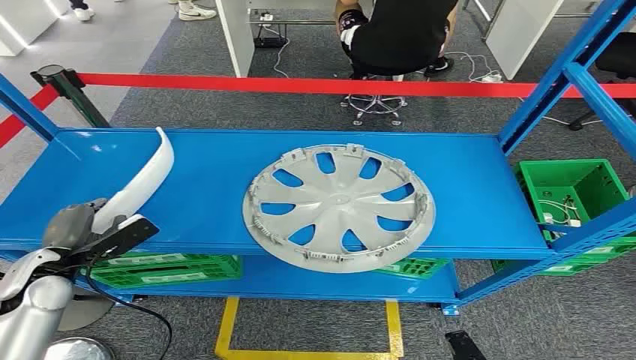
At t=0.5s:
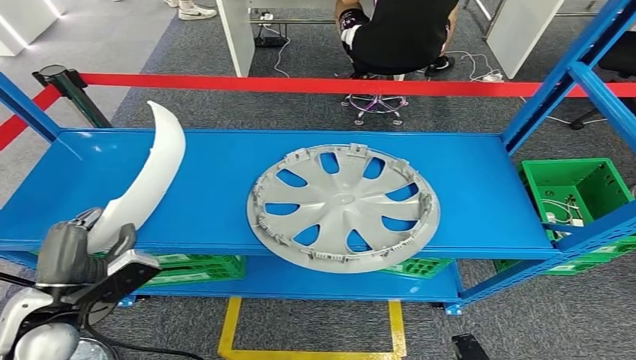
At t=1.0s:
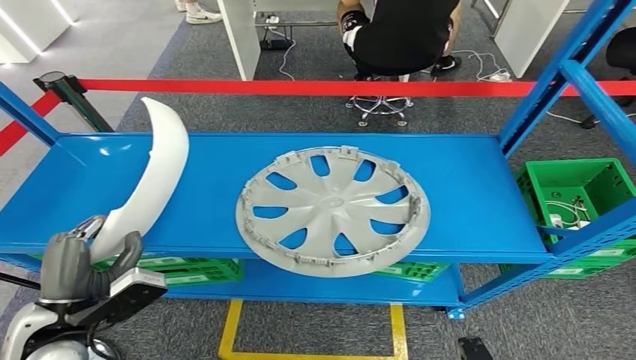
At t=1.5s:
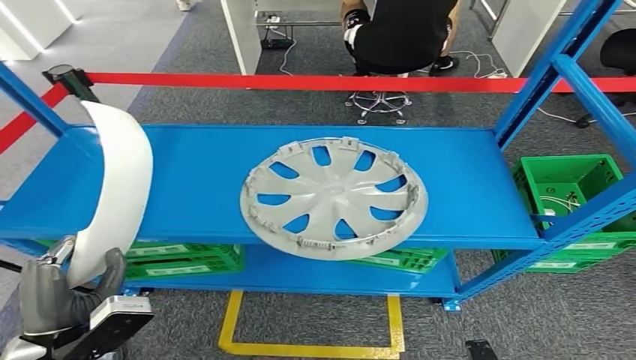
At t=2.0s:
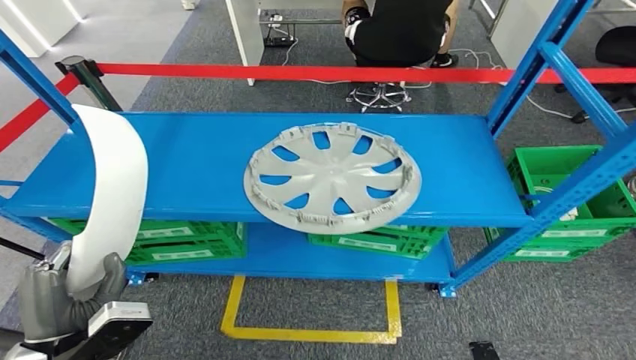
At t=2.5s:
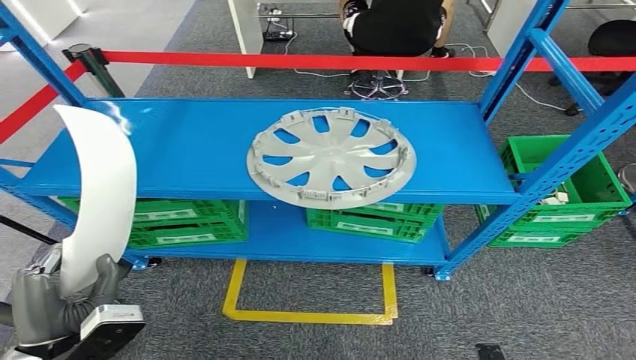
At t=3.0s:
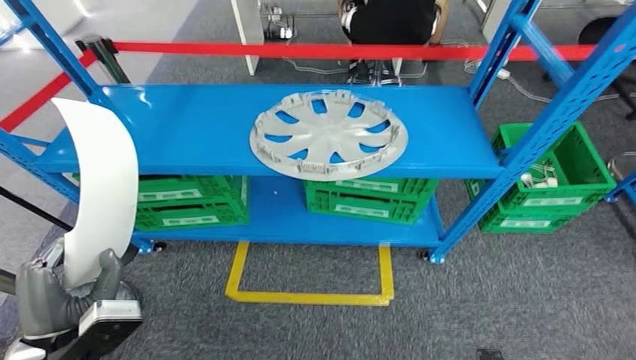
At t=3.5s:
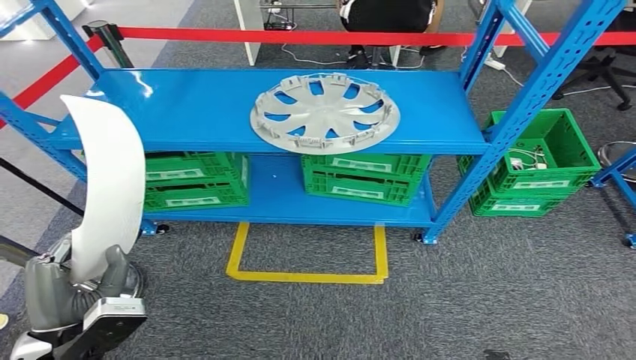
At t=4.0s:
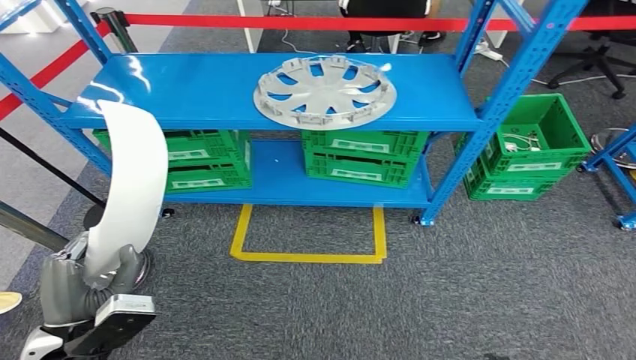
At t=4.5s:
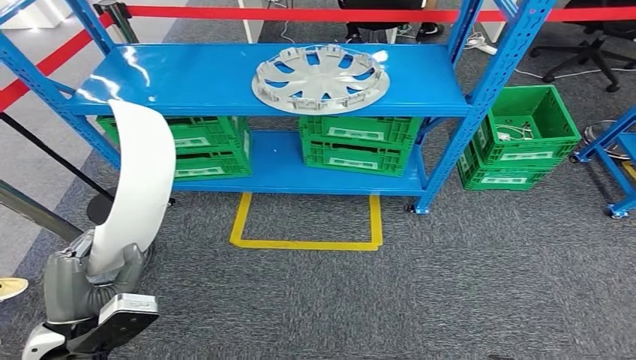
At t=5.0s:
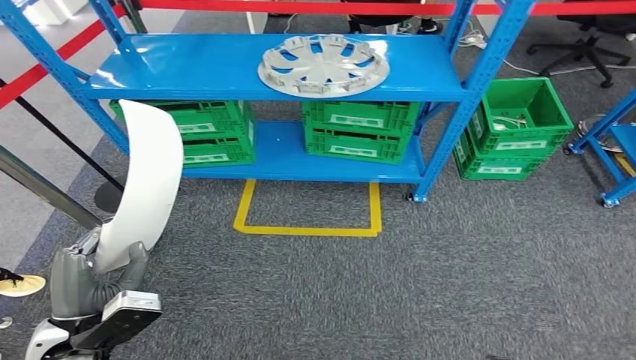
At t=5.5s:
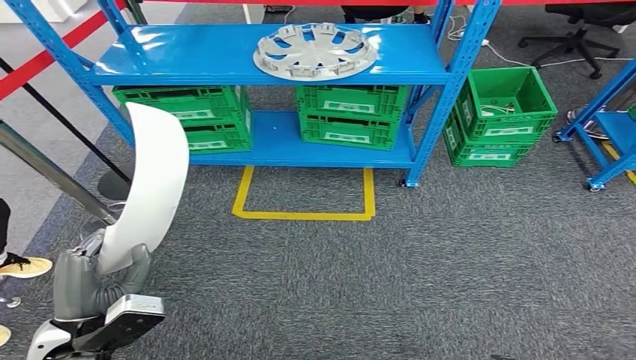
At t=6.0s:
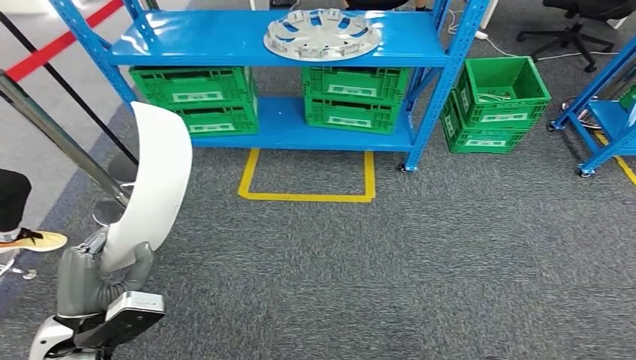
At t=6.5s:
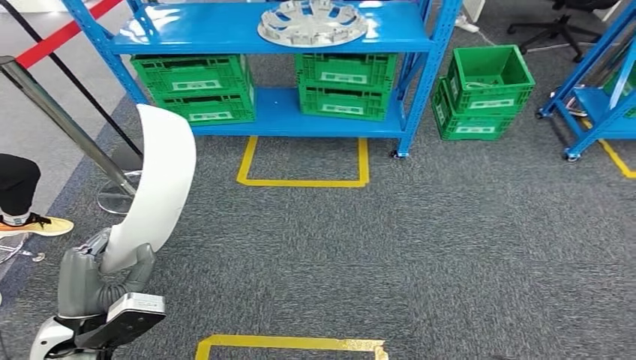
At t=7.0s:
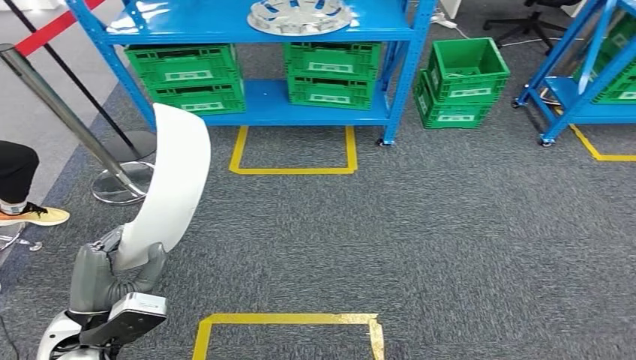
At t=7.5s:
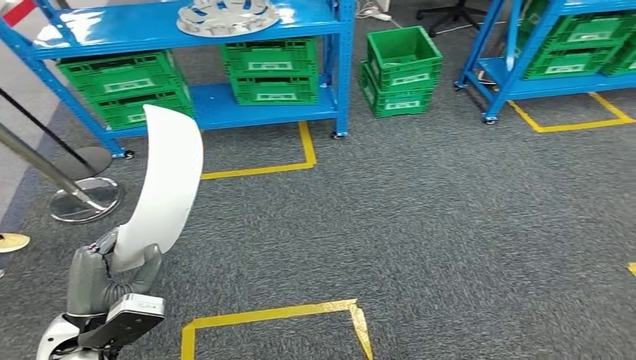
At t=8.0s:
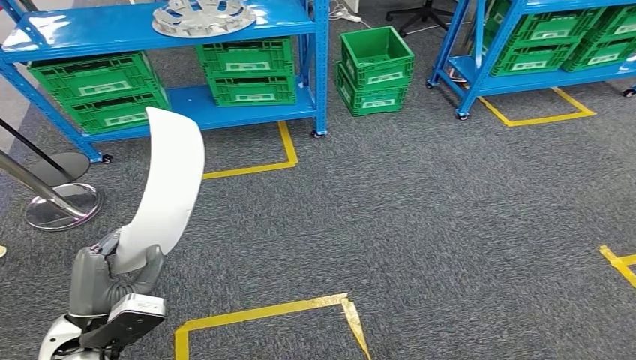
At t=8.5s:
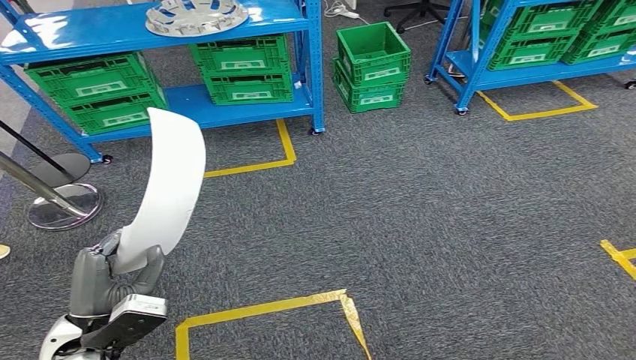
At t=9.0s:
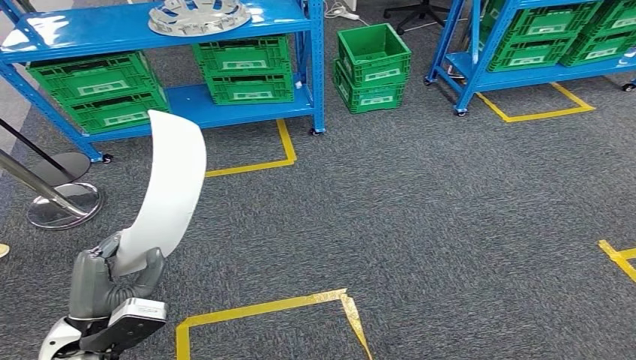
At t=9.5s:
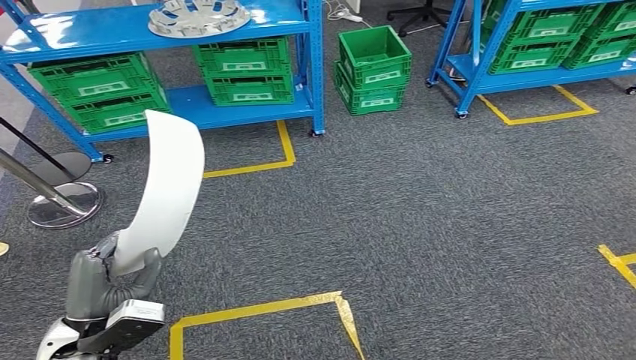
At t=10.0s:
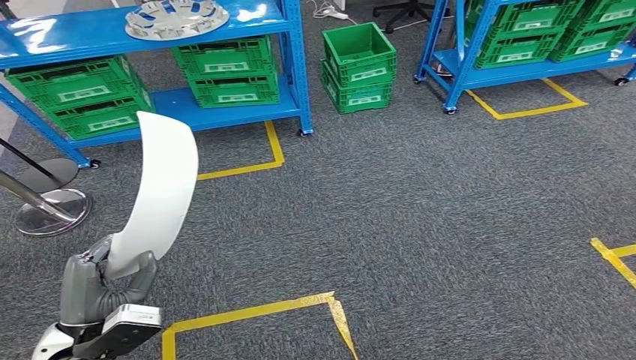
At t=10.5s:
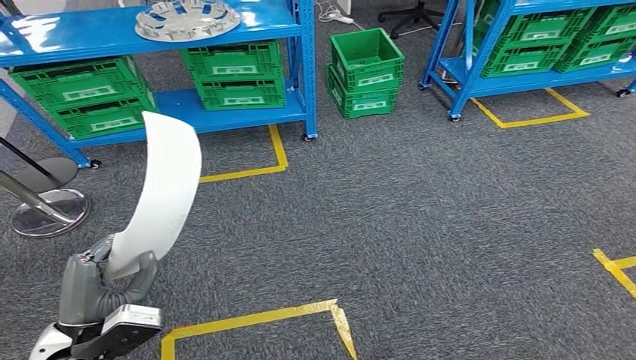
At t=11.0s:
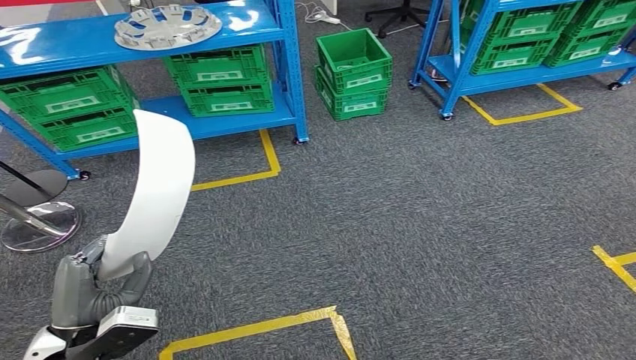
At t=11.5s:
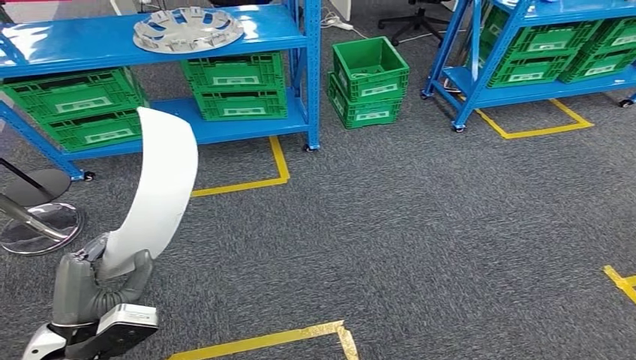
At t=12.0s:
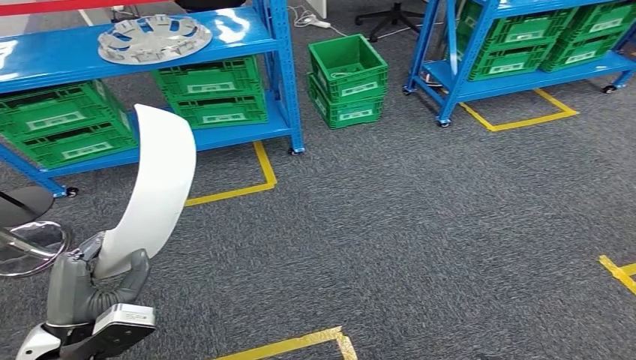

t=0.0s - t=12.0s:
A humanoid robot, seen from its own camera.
Step, t=0.0s - t=2.5s: Pick up the small parts from the shelf.

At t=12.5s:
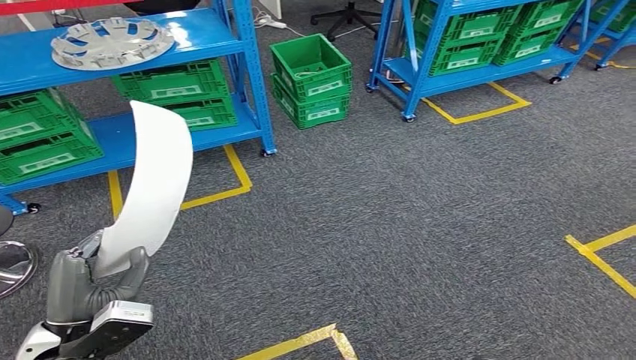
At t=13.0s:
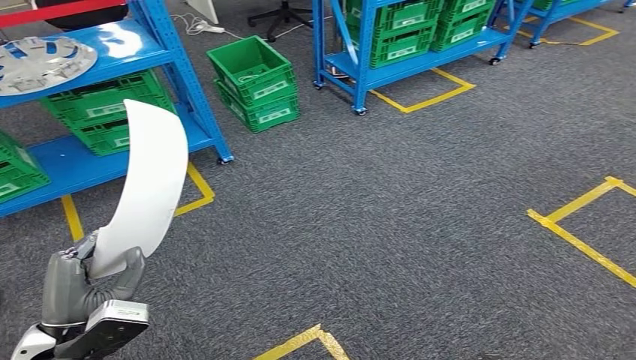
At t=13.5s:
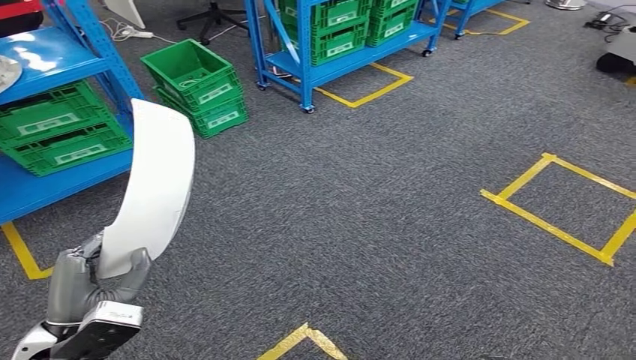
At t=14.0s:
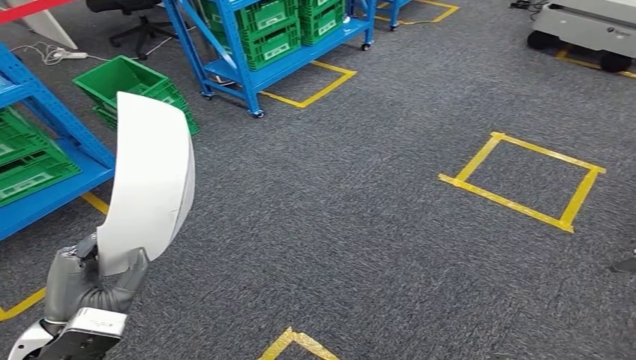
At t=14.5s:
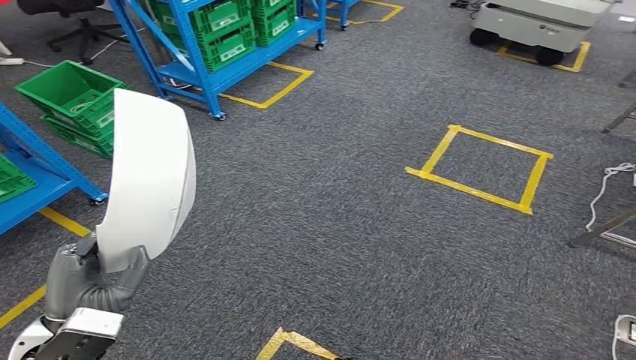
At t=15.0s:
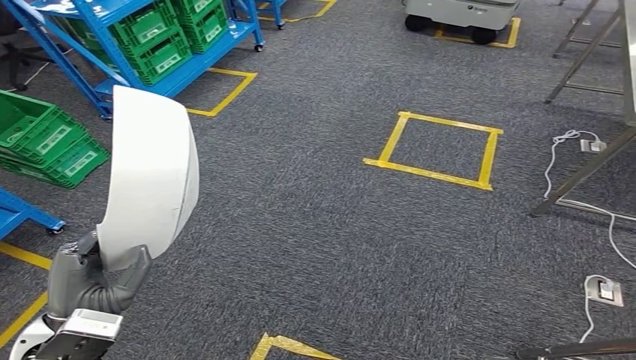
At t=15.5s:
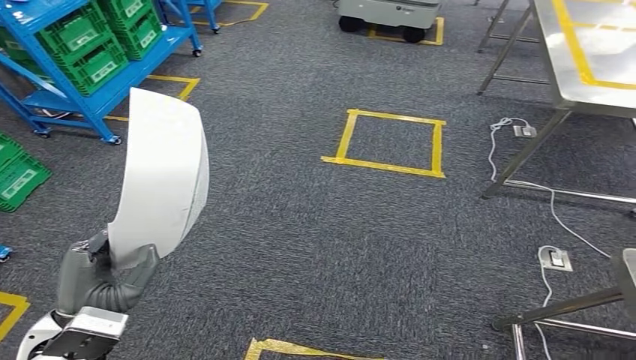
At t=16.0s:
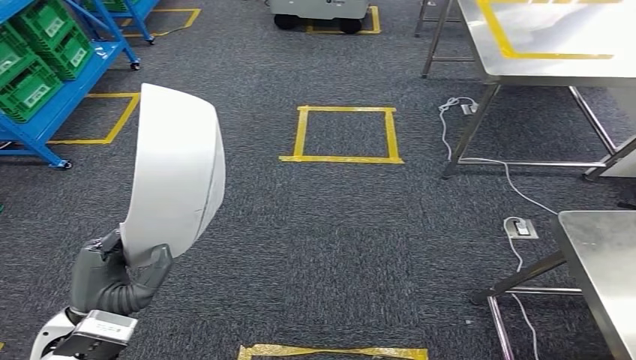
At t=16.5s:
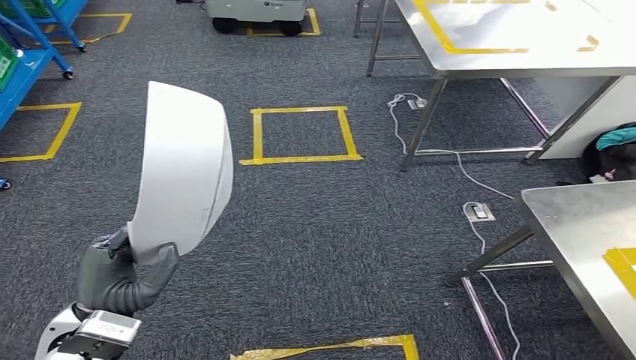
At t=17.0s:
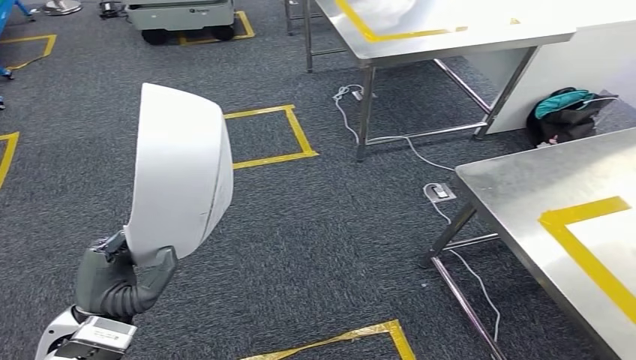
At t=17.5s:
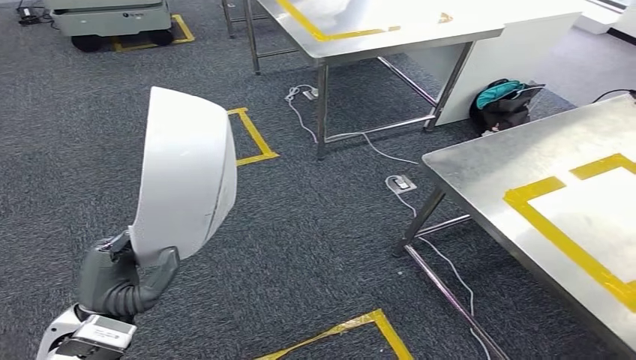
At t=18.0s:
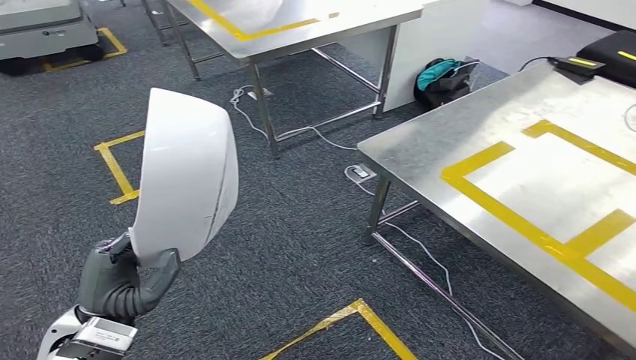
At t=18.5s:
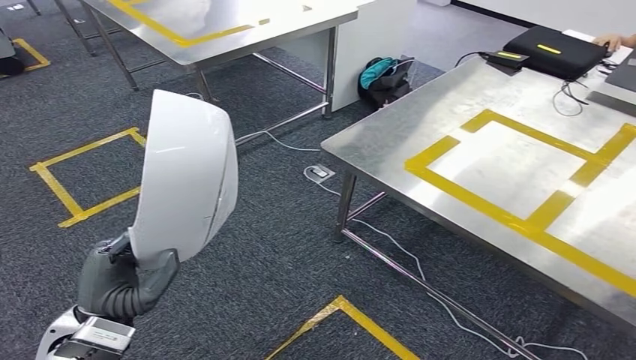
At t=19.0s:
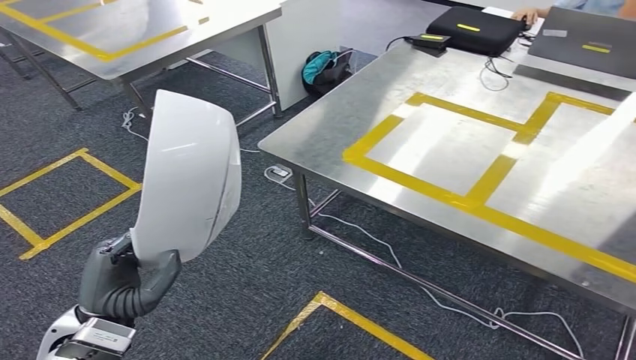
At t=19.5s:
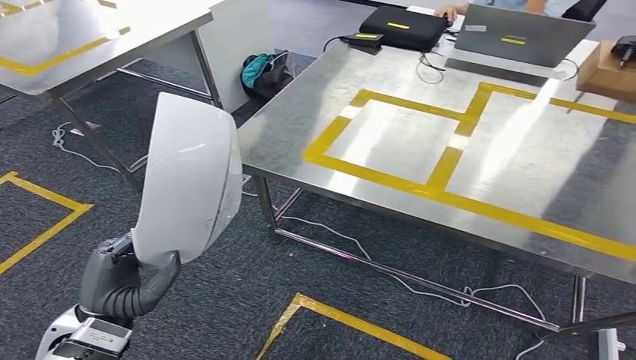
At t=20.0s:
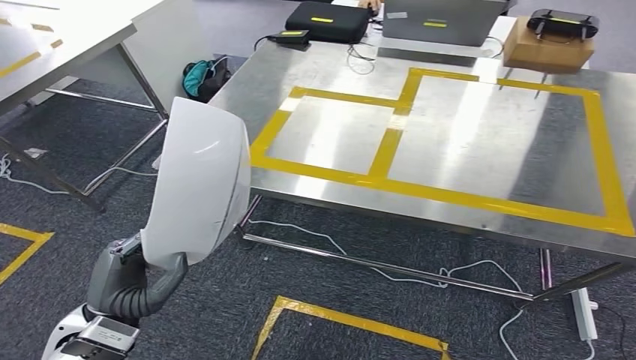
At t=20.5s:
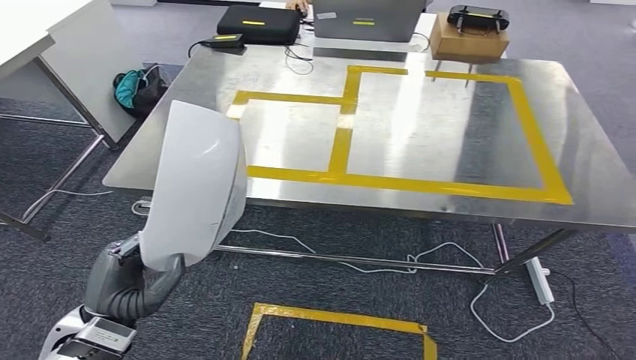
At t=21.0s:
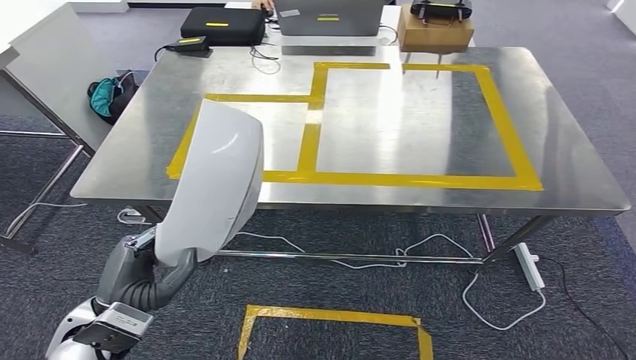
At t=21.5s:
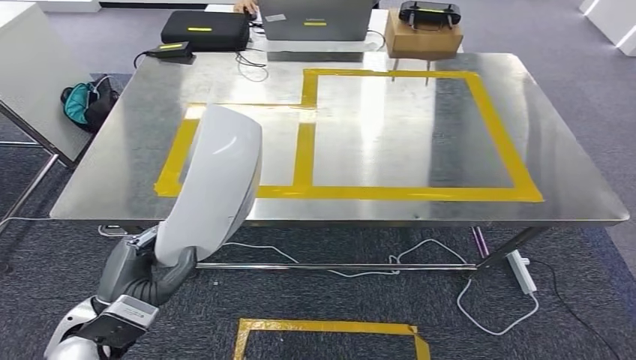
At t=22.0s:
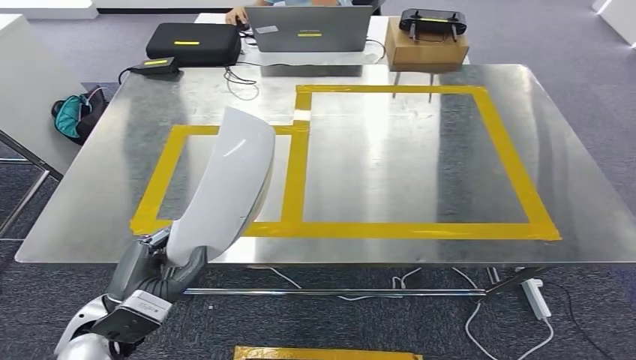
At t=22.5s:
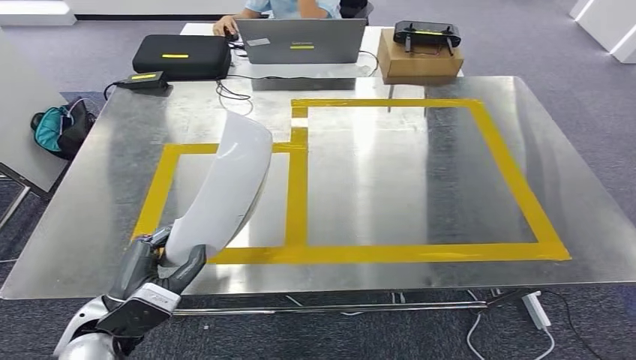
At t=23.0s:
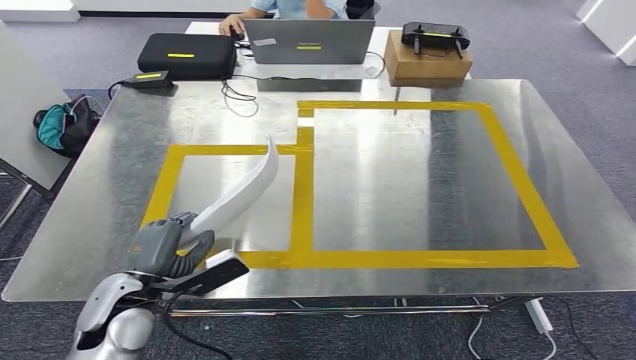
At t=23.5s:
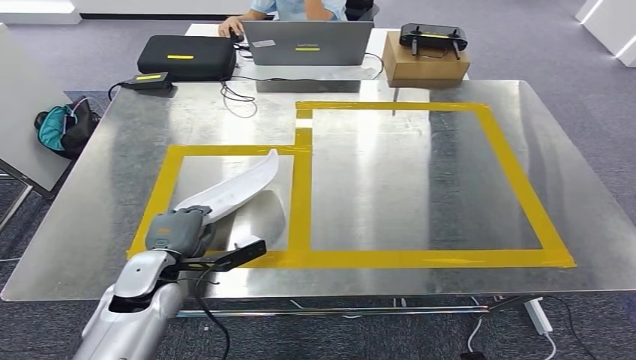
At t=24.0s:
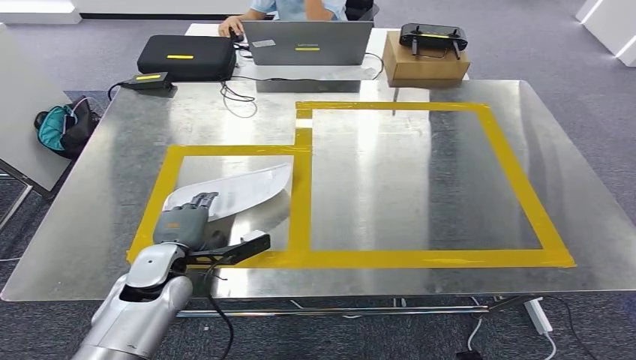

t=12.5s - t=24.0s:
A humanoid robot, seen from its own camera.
Step, t=12.5s - t=20.5s: Move the small parts to the workbench.
